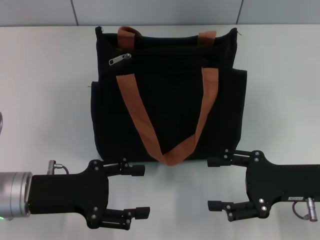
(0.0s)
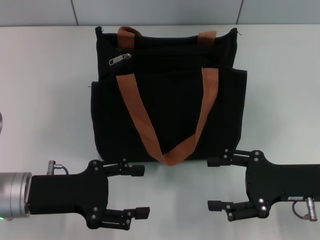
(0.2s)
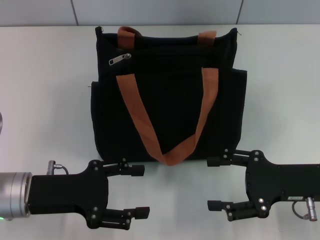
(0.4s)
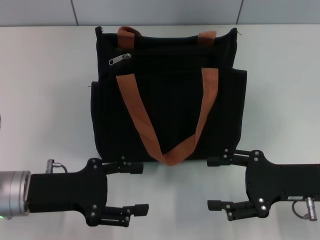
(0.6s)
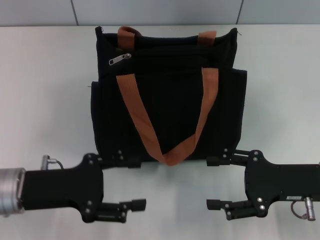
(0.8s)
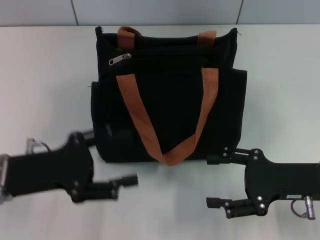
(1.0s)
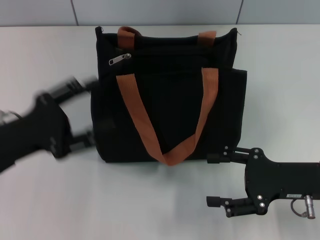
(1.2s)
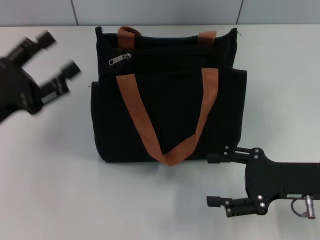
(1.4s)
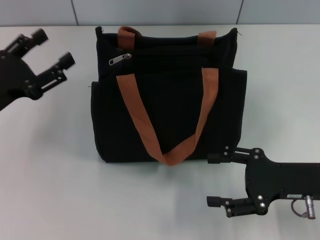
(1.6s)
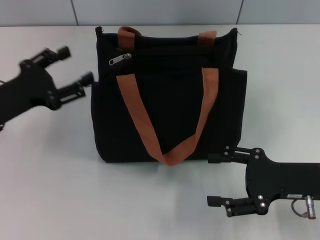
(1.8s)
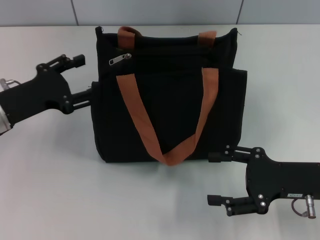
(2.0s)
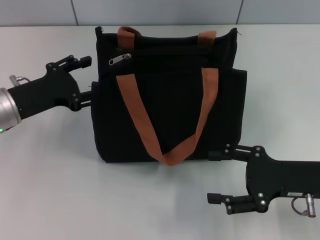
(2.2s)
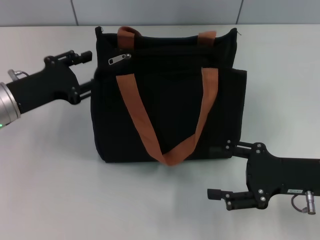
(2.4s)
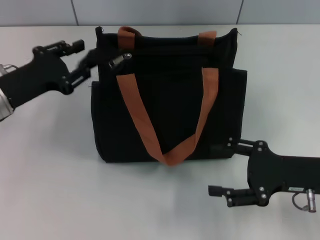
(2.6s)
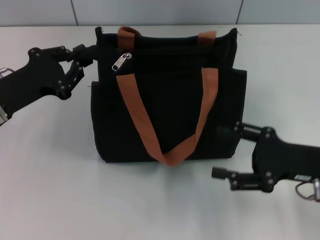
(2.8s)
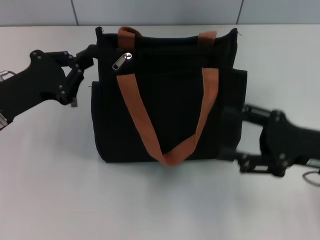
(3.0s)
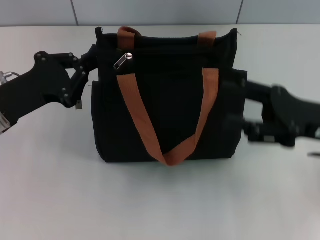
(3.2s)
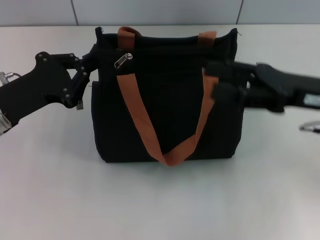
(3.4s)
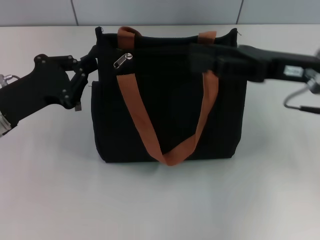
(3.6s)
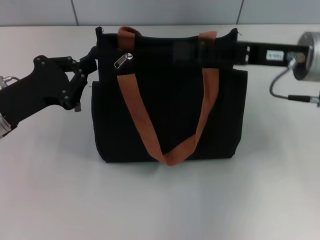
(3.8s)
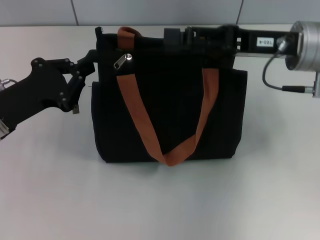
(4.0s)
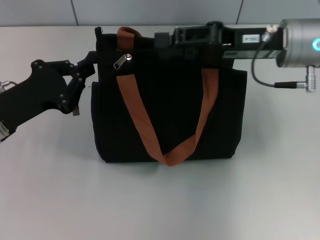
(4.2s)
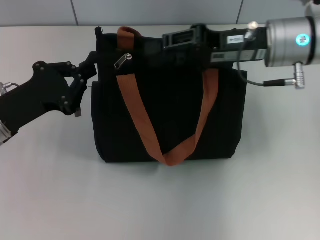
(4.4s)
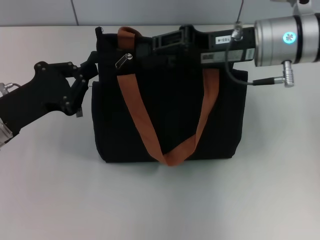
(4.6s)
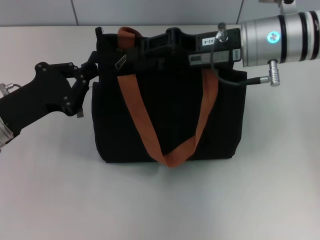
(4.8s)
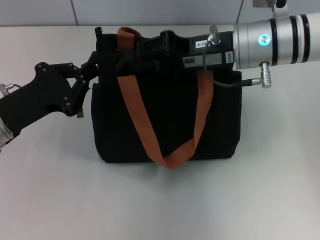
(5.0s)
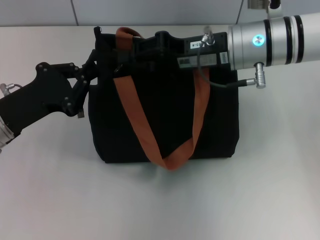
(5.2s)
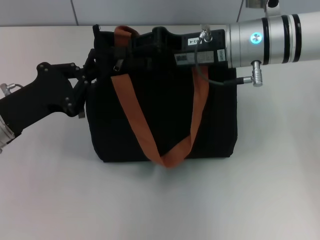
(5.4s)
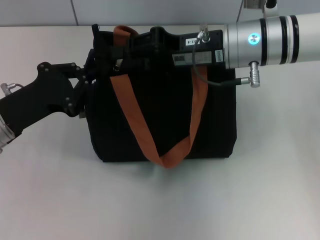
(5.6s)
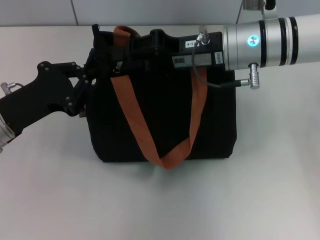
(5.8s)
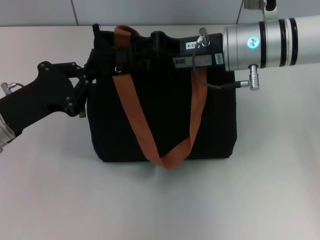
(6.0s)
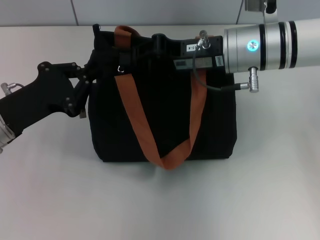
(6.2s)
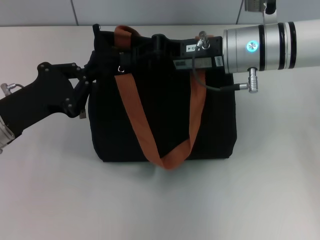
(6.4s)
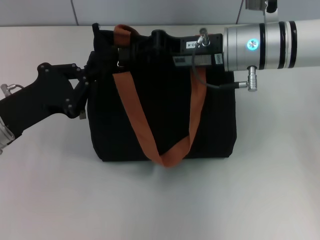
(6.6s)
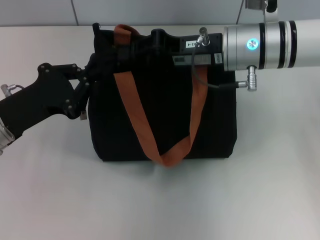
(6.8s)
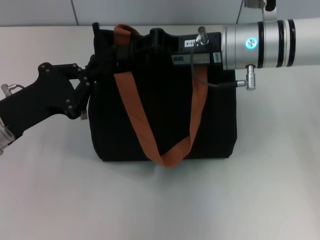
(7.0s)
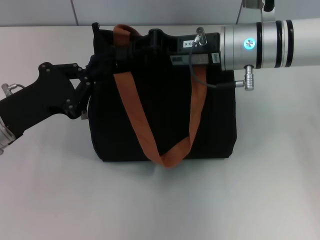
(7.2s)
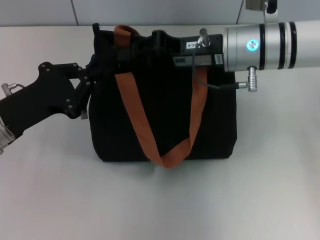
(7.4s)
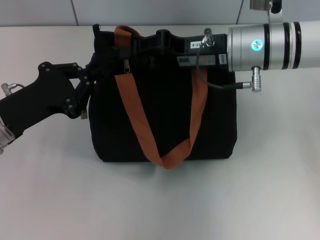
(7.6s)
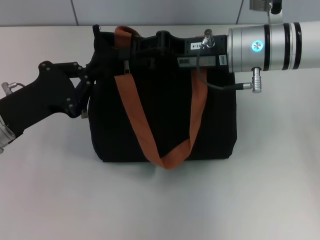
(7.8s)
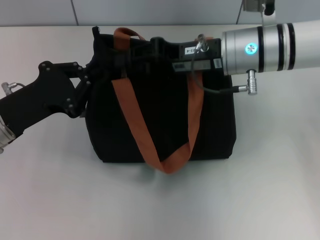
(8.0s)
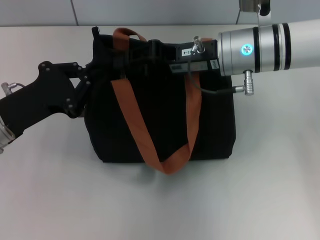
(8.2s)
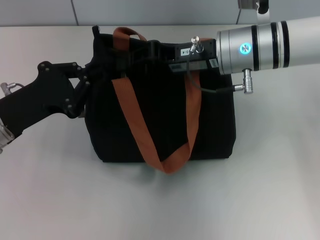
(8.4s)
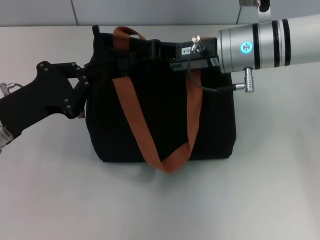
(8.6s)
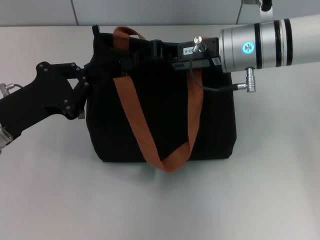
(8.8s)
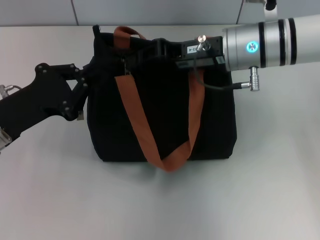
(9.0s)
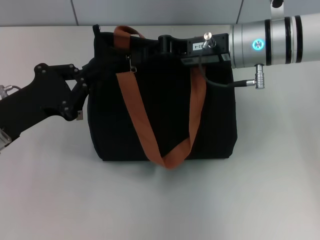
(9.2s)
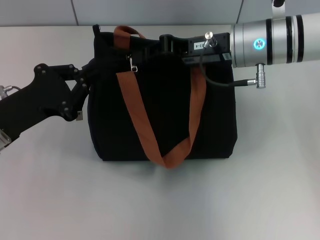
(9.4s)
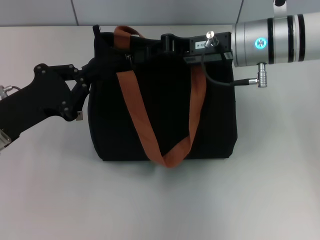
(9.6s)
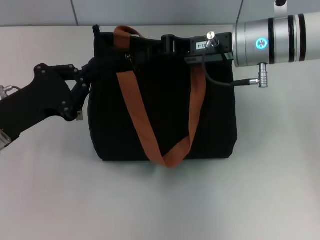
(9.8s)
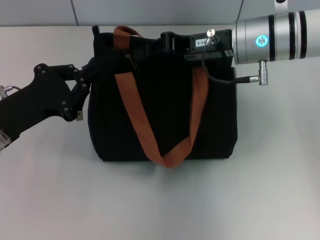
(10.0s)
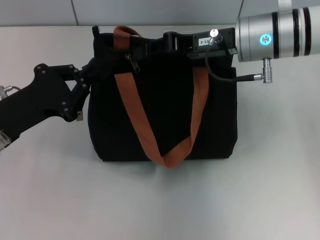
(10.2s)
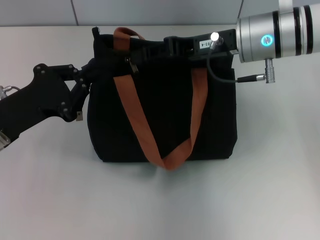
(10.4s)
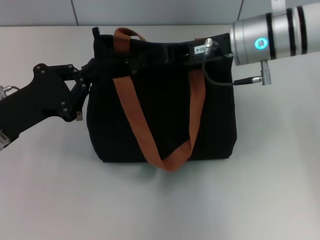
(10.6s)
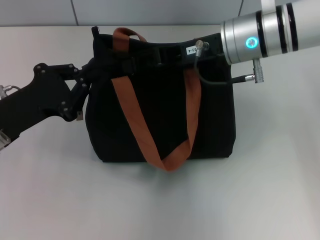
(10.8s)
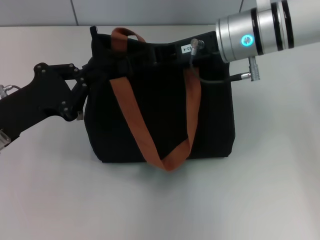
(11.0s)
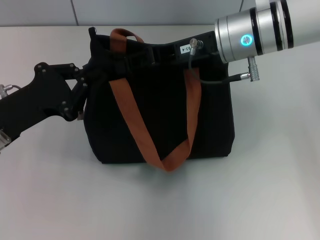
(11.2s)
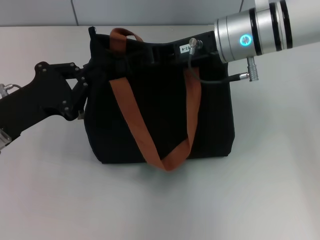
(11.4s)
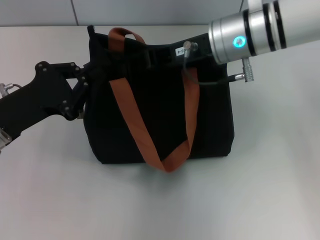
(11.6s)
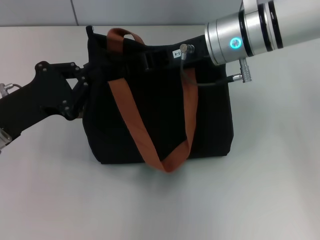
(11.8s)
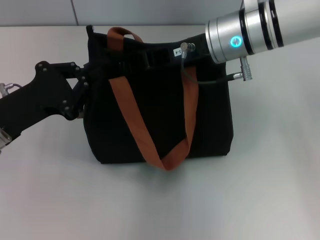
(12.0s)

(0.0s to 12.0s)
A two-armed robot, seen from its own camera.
0.0s - 1.6s: The left gripper travels to the left by roughly 5 cm.
1.6s - 3.0s: The left gripper closes.
3.0s - 4.4s: The right gripper goes roughly 20 cm forward, to the left and upward.
4.4s - 6.0s: The grippers move only a little.
6.0s - 7.6s: Both grippers stay about where they are.
7.6s - 10.4s: The grippers make only small movements.
10.4s - 12.0s: The grippers stay close to where they were, moving slightly.

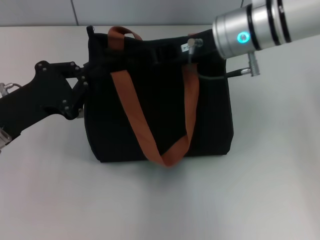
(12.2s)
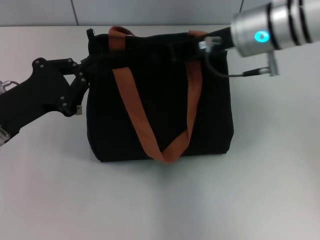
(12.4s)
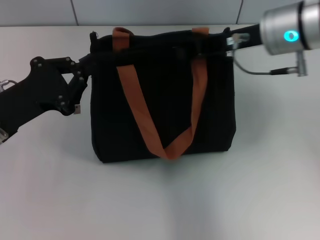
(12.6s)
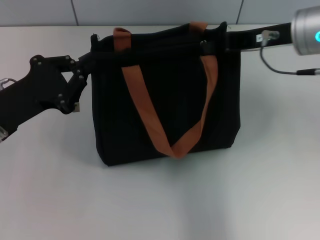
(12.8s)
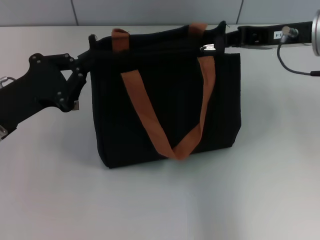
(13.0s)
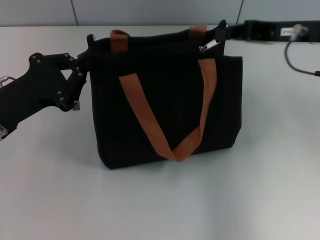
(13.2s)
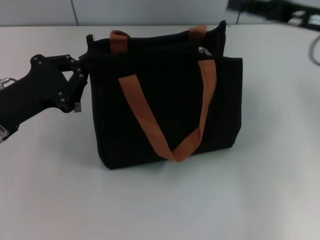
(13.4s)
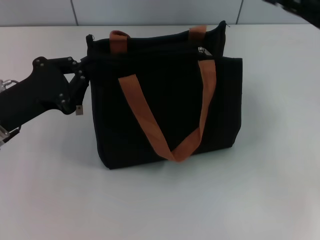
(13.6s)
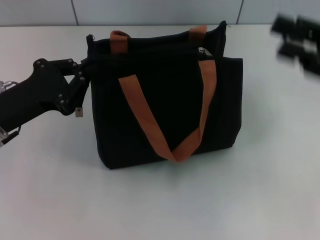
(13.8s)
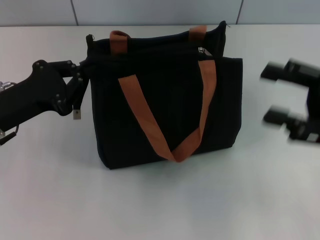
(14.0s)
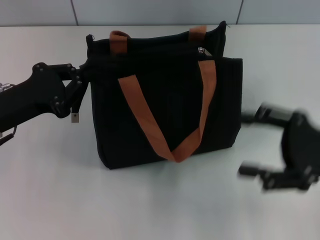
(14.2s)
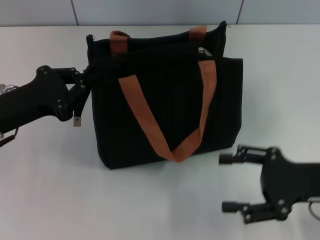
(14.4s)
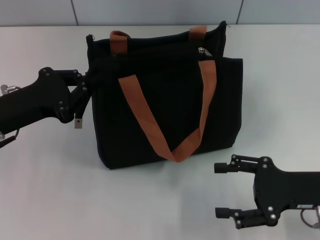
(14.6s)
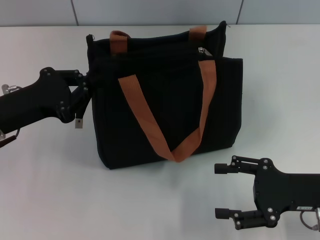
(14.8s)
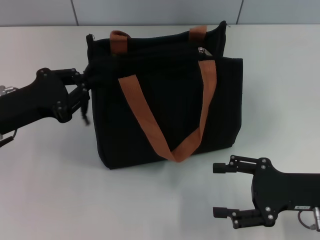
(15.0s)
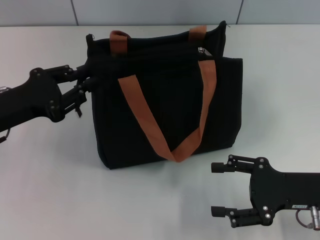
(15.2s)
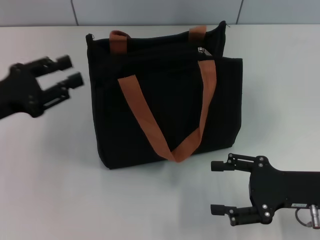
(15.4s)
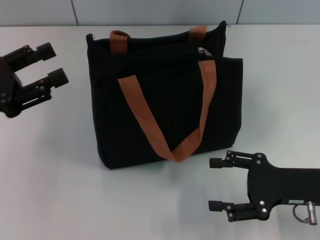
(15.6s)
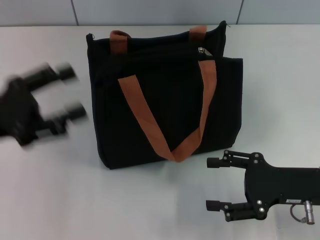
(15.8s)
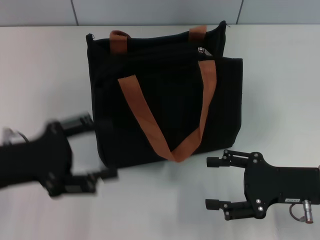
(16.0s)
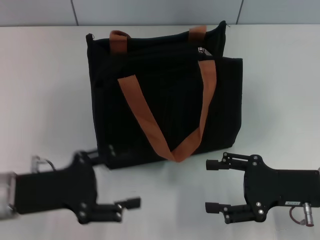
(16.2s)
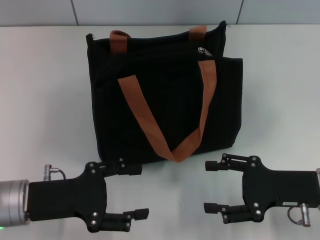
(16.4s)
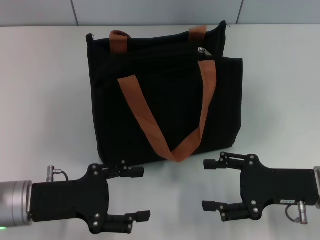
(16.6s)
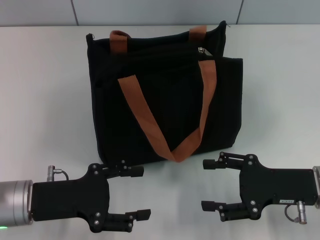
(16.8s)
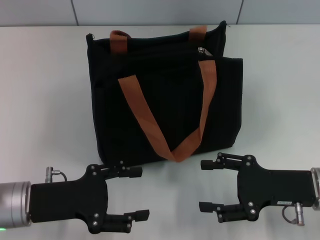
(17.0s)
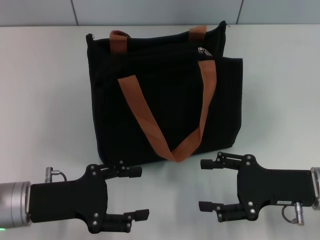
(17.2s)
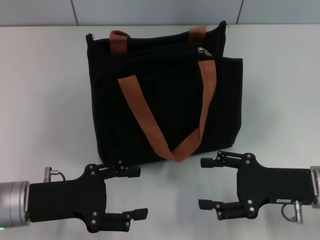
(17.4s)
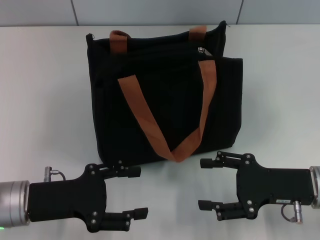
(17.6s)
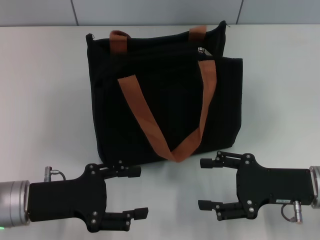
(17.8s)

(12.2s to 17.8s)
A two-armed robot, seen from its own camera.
Step, 13.6s - 15.4s: Grab the zipper with your left hand.
12.2s - 13.6s: The right gripper heads to the right and backward, covering some 20 cm.
13.6s - 15.0s: The right gripper moves downward and backward, approximately 15 cm, and opens its fingers.
15.0s - 16.4s: The left gripper heads backward, covering approximately 5 cm, and opens its fingers.
16.4s - 17.8s: Both grippers stay put.

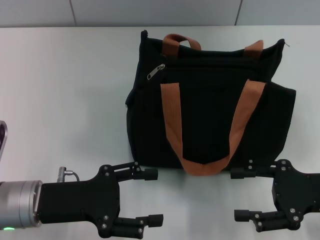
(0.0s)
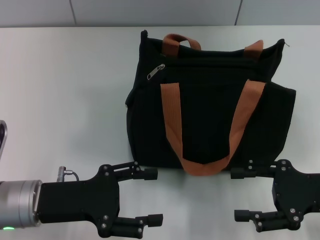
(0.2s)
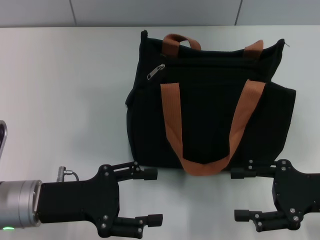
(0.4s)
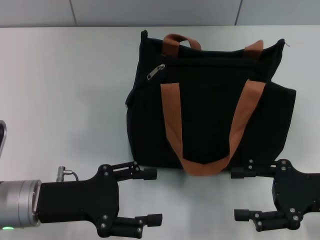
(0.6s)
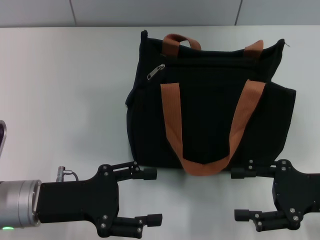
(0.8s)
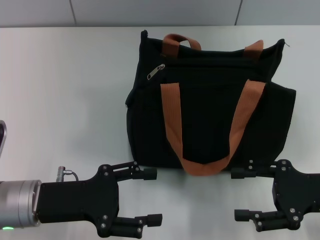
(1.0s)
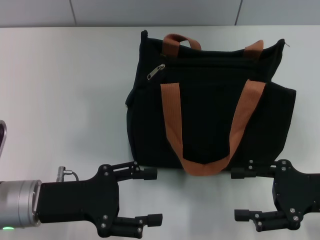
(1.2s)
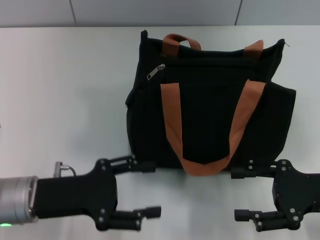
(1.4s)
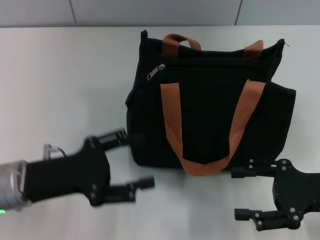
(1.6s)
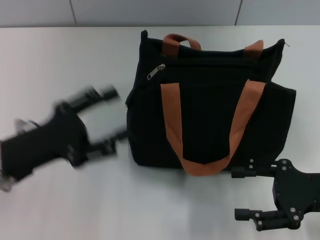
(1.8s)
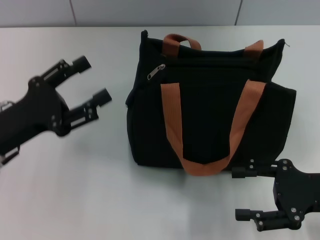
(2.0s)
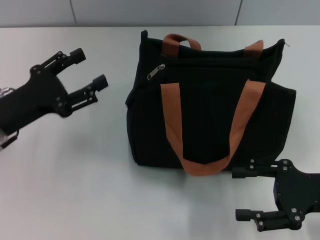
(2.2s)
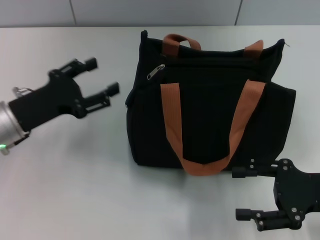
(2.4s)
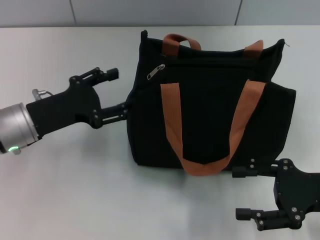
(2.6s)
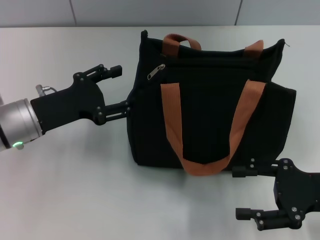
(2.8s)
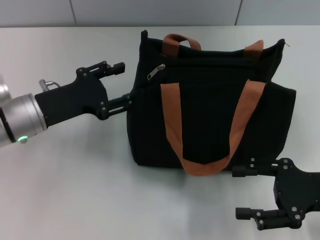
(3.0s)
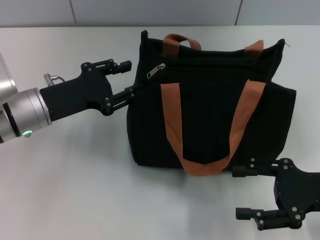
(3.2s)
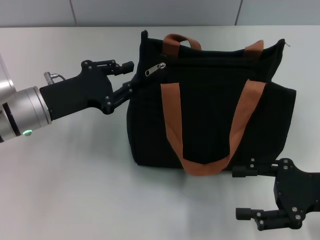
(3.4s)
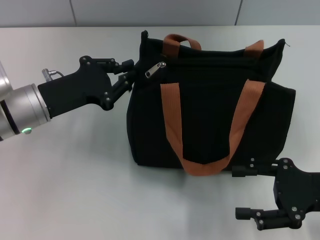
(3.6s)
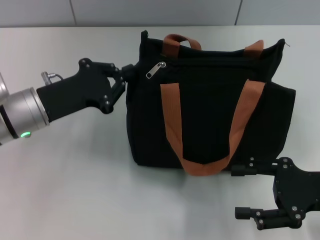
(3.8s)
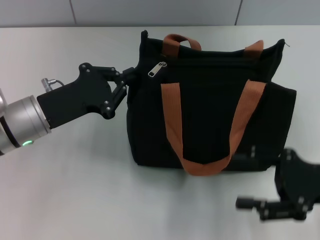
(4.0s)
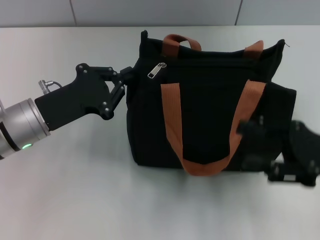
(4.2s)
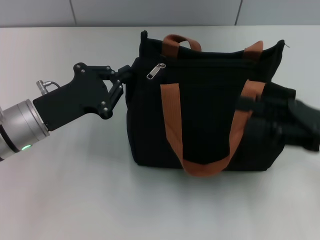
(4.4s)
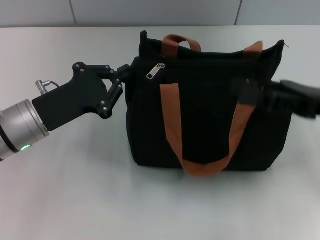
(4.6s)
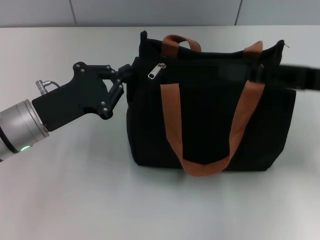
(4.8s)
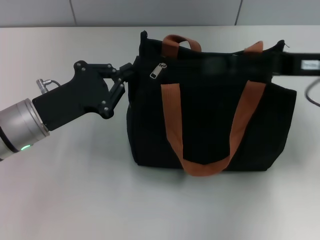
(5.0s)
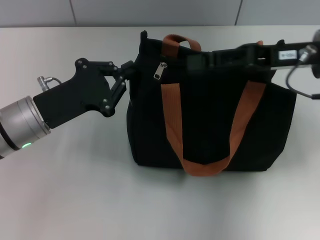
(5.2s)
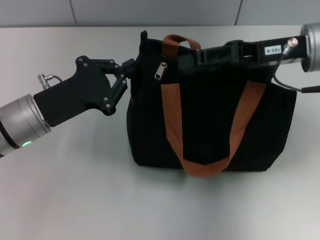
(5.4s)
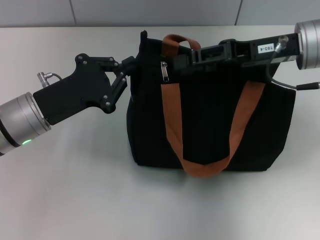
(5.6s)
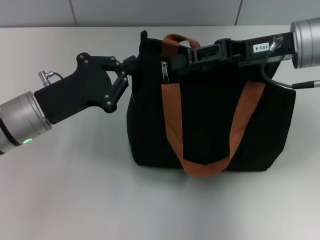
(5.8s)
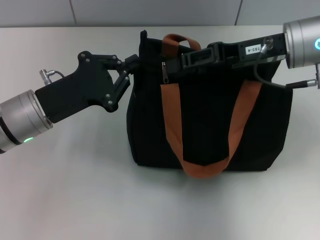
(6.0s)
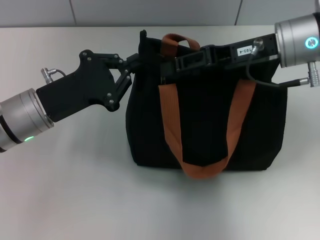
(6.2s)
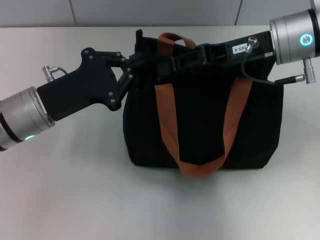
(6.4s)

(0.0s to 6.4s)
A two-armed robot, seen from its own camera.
0.0s - 1.6s: There are only small adjustments of the grippers.
1.6s - 3.2s: The left gripper goes some 10 cm forward.
3.2s - 4.8s: The right gripper is displaced forward and upward by some 10 cm, while the left gripper closes its fingers.
4.8s - 6.4s: The right gripper heads to the left and forward, covering approximately 10 cm, and closes up.
